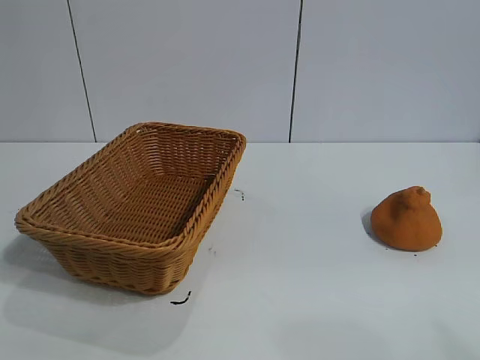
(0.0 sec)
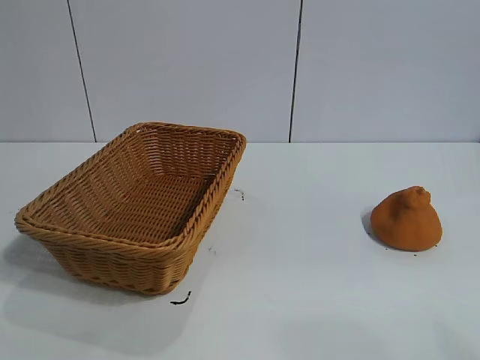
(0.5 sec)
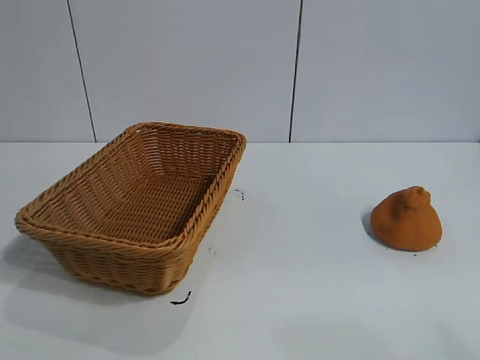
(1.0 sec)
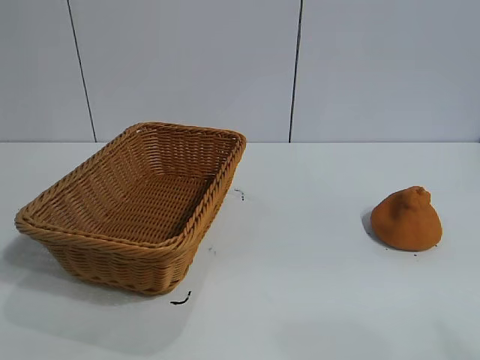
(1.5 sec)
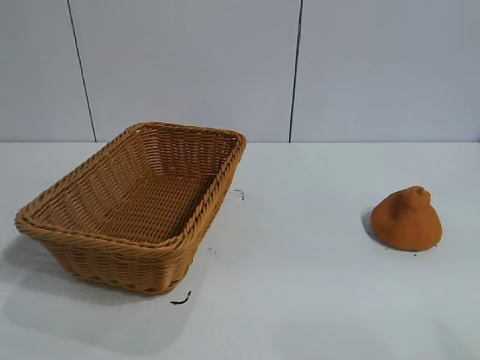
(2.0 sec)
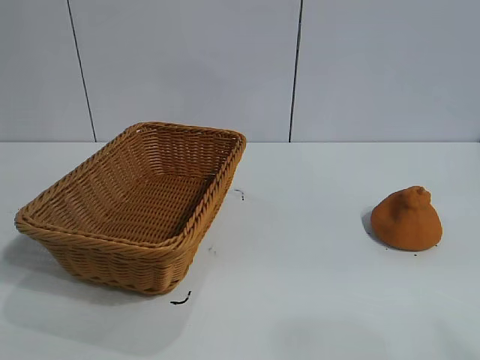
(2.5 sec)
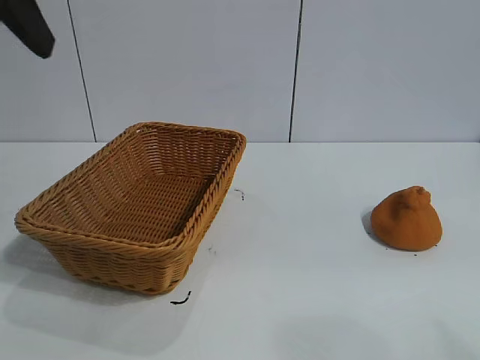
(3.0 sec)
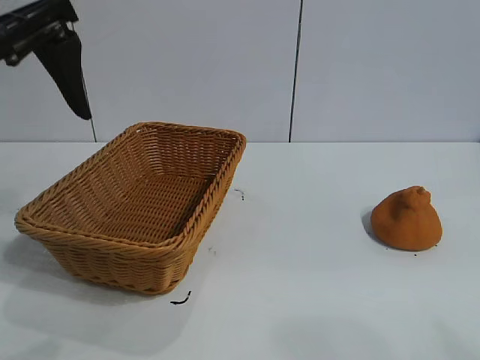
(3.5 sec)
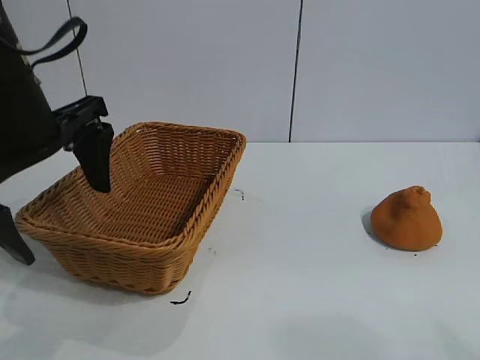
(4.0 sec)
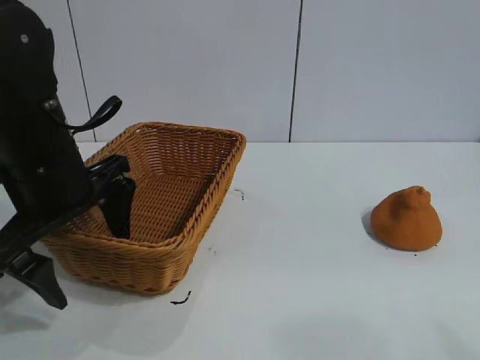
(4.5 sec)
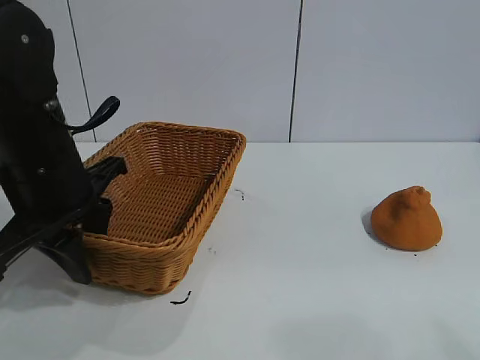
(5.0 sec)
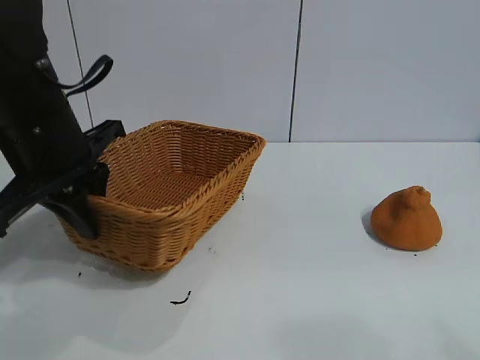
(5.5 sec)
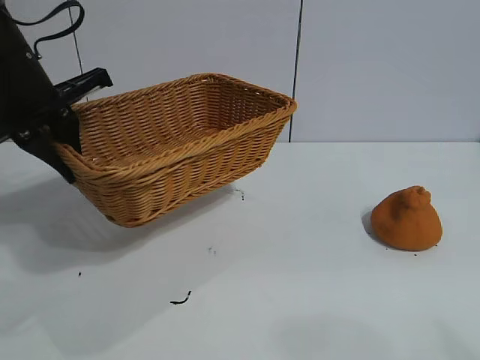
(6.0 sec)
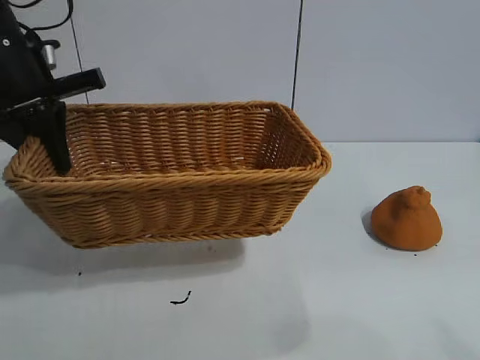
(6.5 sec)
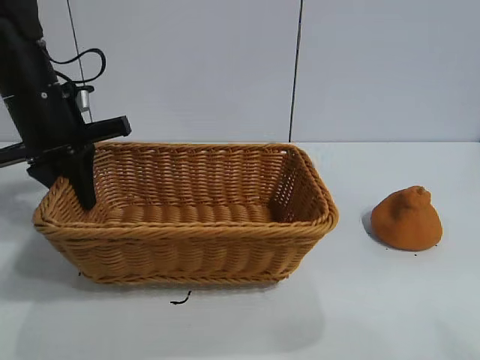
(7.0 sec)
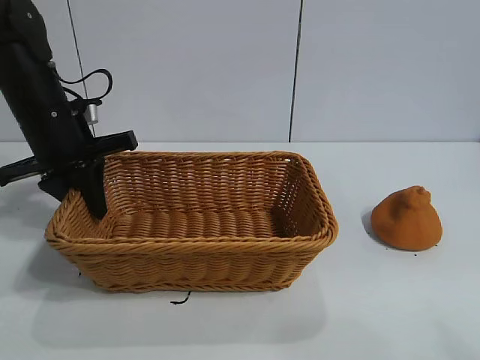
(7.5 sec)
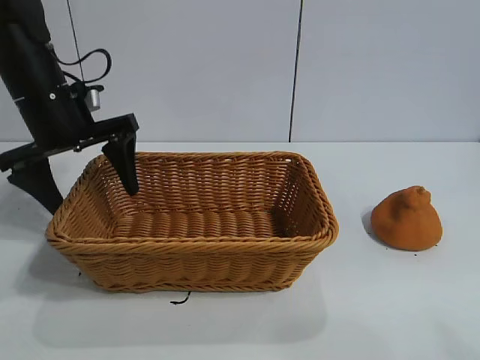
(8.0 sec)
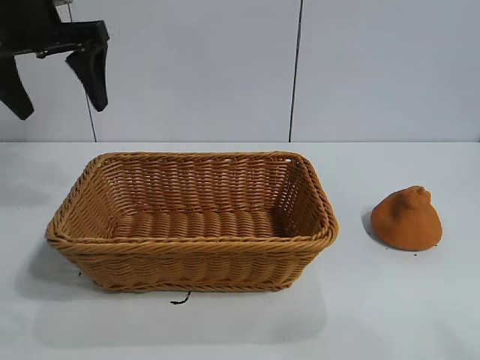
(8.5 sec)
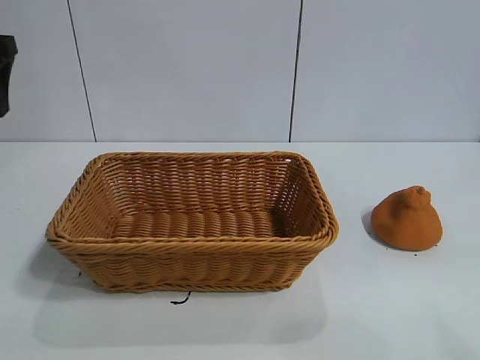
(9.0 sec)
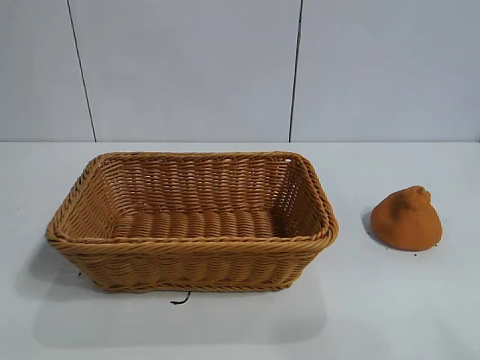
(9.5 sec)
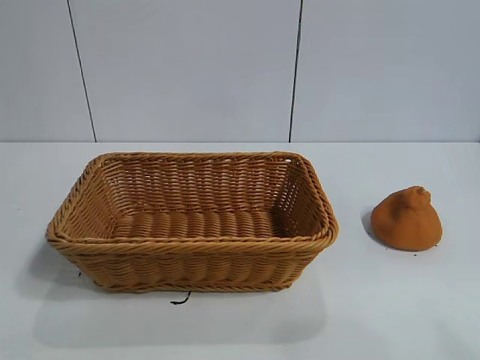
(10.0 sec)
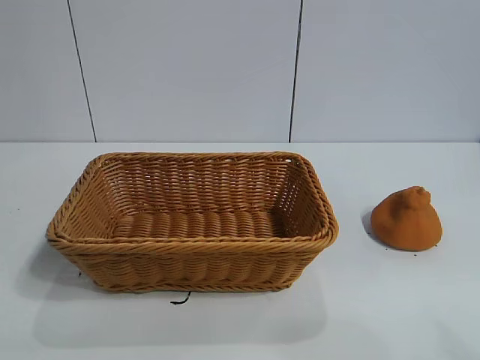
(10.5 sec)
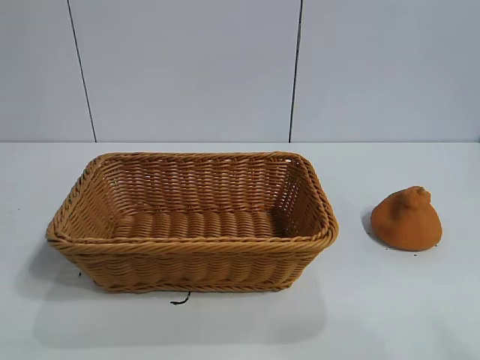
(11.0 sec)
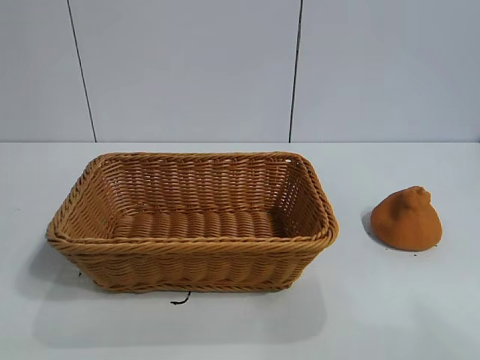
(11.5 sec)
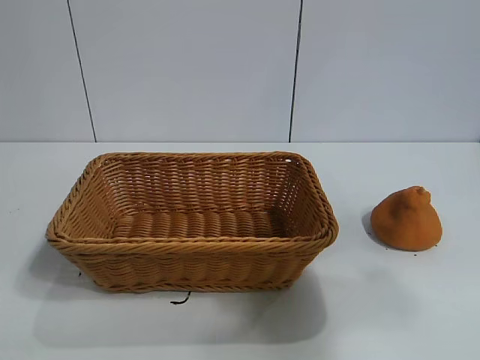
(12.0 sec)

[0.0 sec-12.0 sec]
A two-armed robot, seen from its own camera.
Task of the whole recording: pick up the orange and put it into the basket.
Step, 2.0 sec to 5.0 sec: Grasp the basket with left gripper.
Step, 5.5 sec to 7.5 sec: Place the basket in the center of view with left gripper.

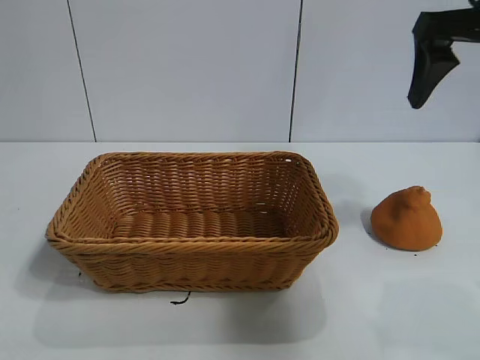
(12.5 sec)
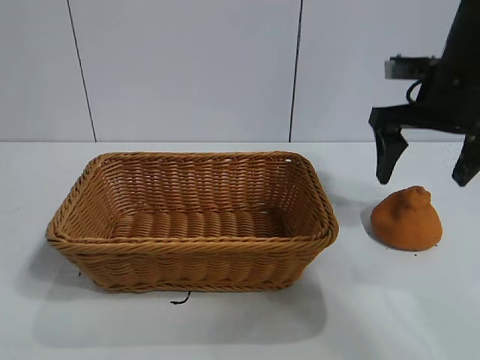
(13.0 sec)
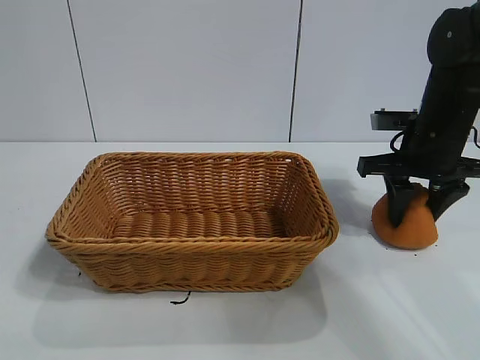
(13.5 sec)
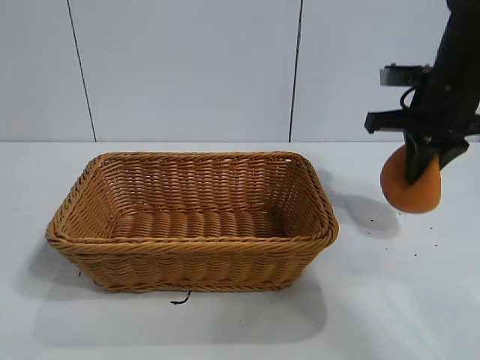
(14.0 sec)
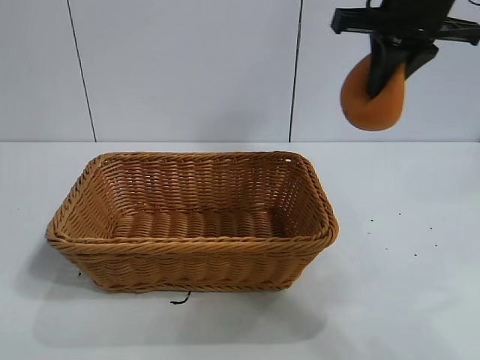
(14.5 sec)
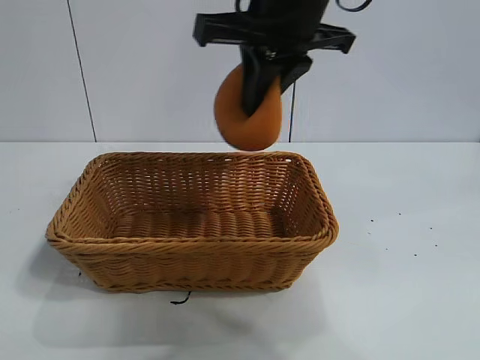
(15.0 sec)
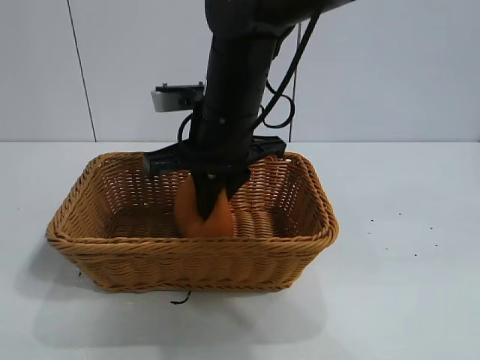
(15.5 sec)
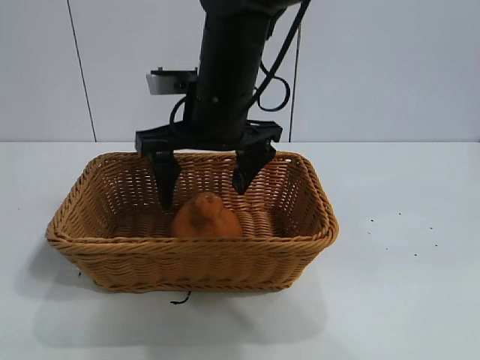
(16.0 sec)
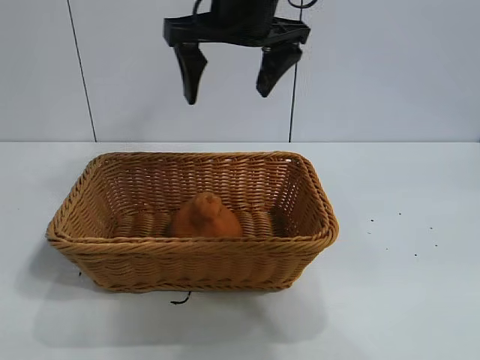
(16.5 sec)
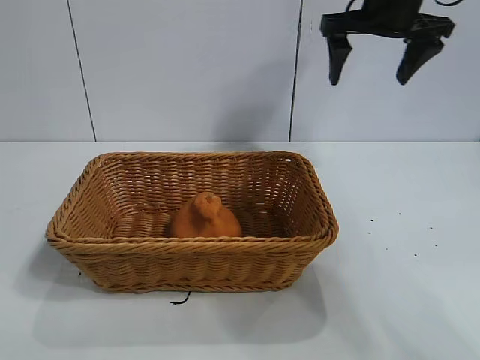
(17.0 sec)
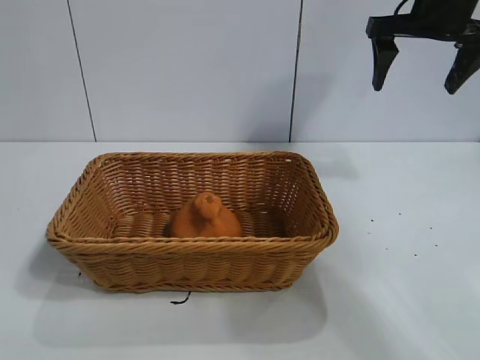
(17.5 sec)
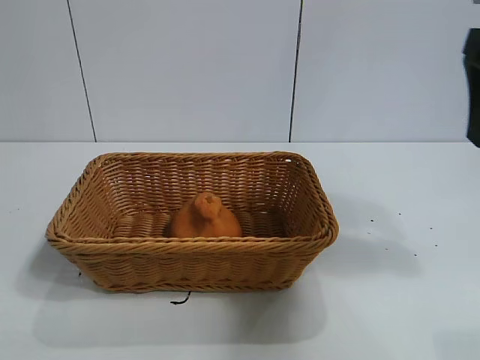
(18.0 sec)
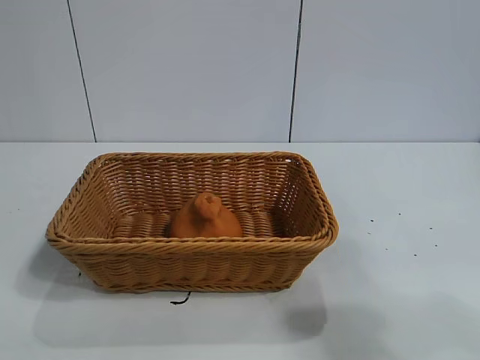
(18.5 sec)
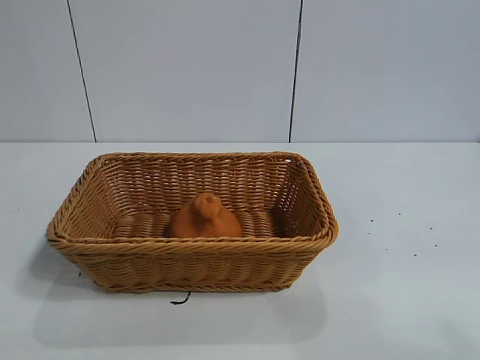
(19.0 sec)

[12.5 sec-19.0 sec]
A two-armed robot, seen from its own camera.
Task of the whole recording: pick up the orange and put it into the basket.
Step, 14.0 sec to 15.5 sec: Place the orange in the basket with right gripper.
